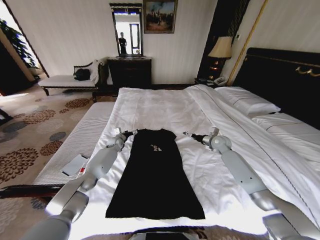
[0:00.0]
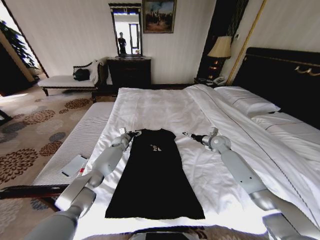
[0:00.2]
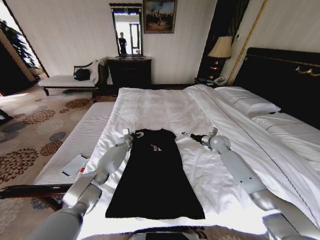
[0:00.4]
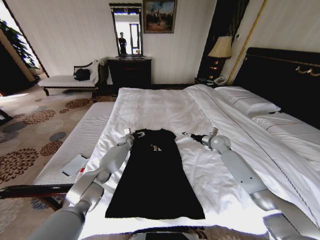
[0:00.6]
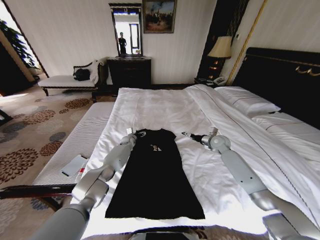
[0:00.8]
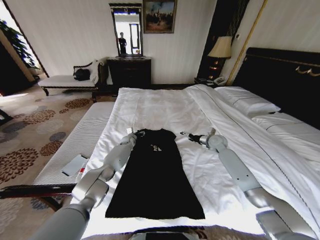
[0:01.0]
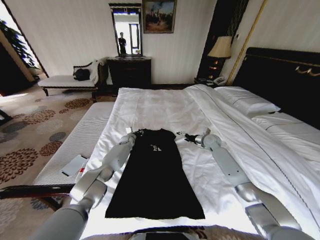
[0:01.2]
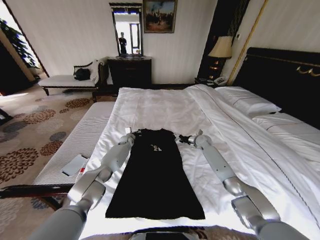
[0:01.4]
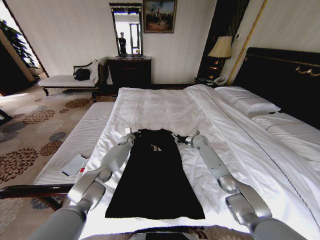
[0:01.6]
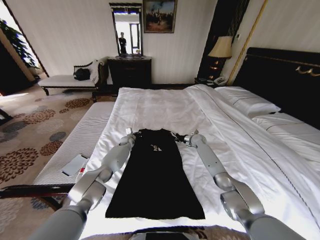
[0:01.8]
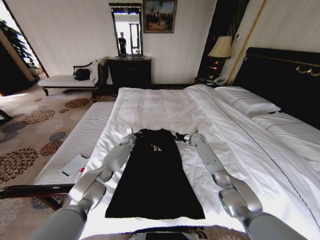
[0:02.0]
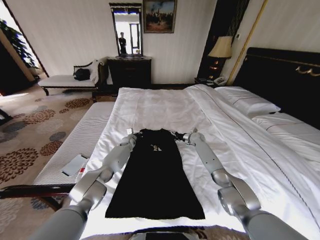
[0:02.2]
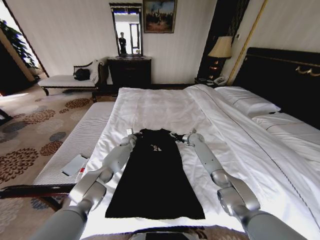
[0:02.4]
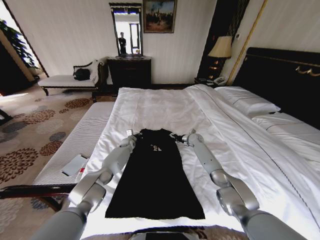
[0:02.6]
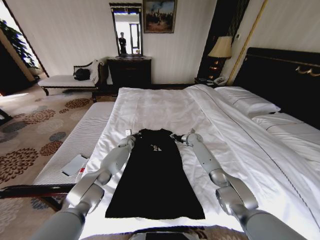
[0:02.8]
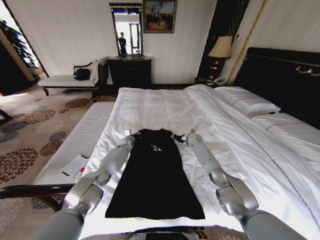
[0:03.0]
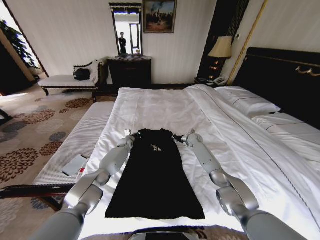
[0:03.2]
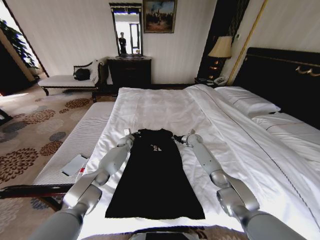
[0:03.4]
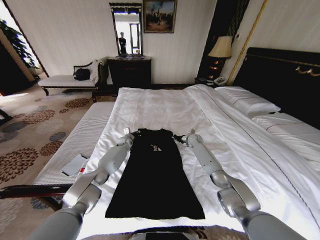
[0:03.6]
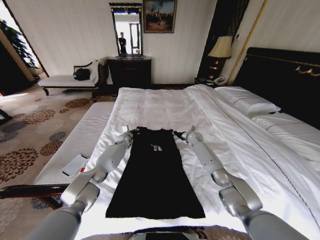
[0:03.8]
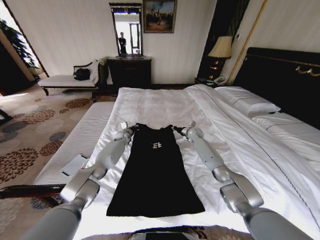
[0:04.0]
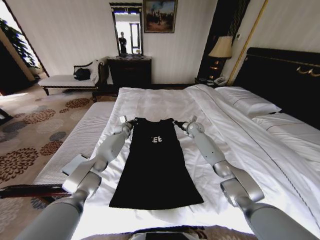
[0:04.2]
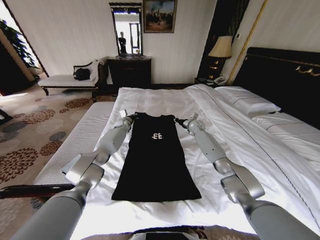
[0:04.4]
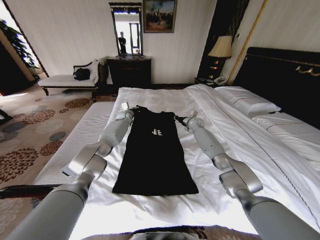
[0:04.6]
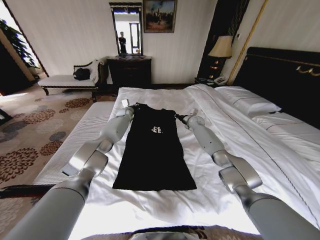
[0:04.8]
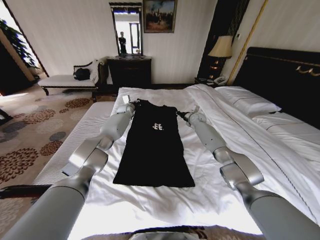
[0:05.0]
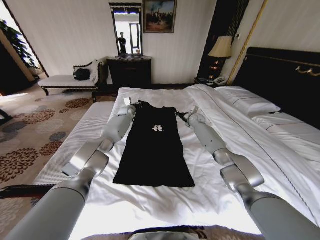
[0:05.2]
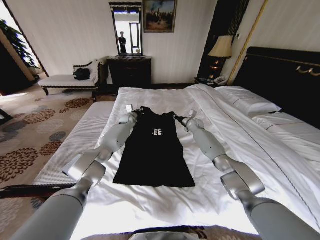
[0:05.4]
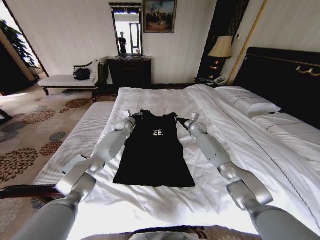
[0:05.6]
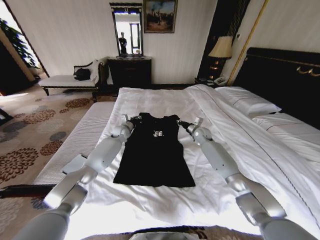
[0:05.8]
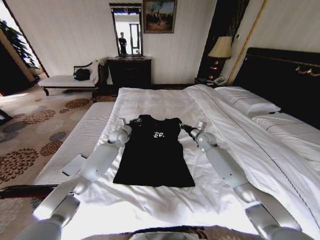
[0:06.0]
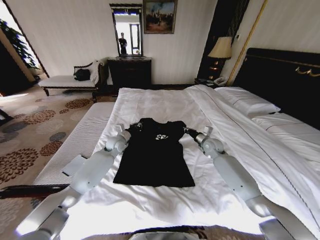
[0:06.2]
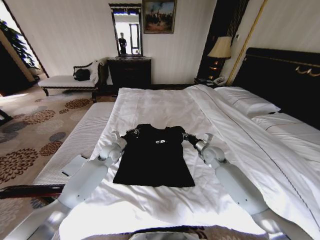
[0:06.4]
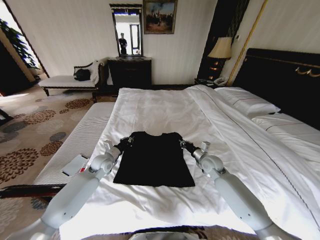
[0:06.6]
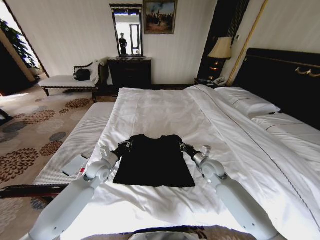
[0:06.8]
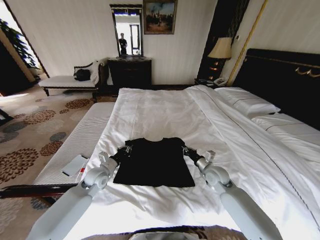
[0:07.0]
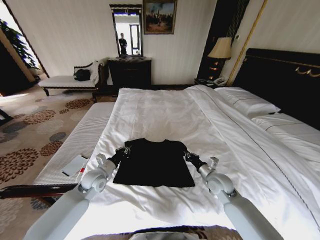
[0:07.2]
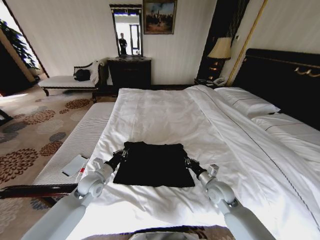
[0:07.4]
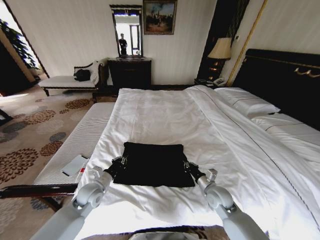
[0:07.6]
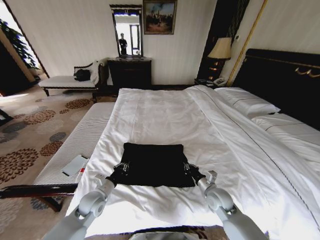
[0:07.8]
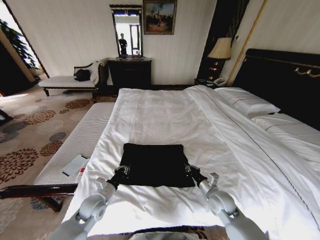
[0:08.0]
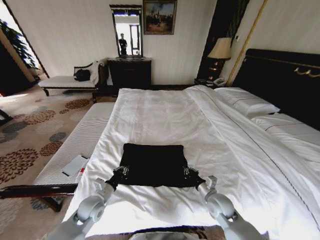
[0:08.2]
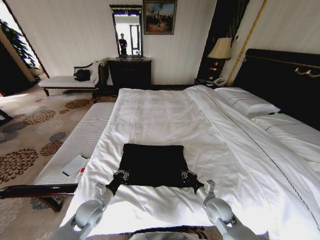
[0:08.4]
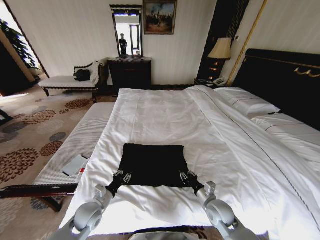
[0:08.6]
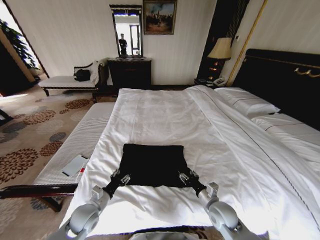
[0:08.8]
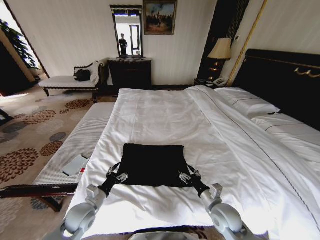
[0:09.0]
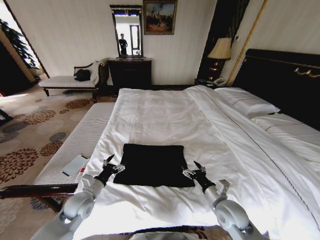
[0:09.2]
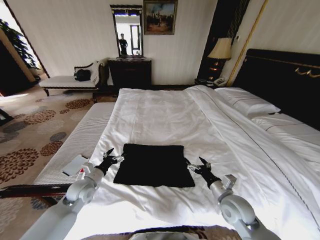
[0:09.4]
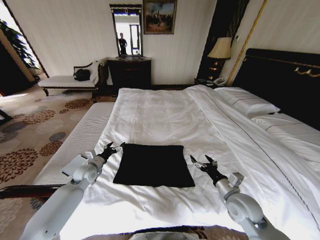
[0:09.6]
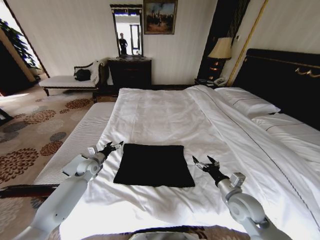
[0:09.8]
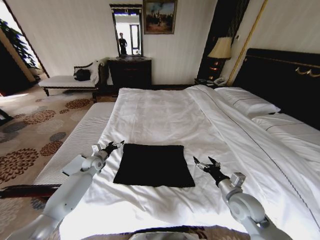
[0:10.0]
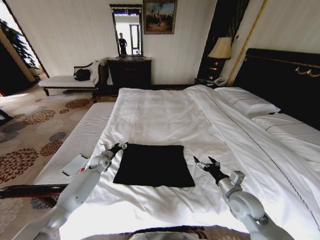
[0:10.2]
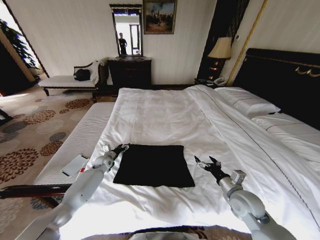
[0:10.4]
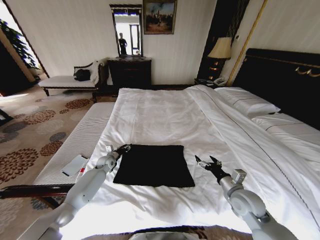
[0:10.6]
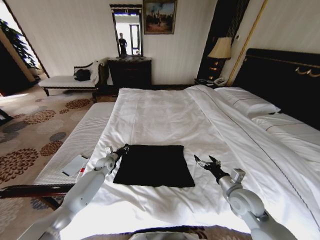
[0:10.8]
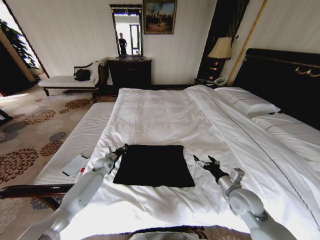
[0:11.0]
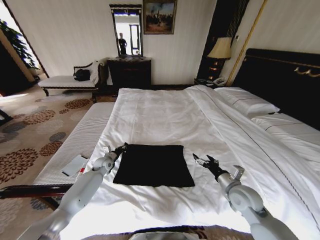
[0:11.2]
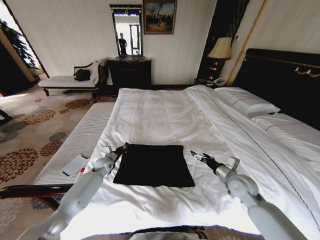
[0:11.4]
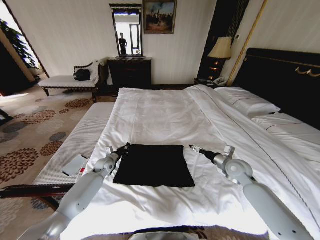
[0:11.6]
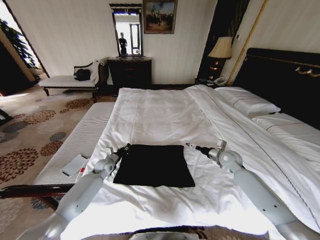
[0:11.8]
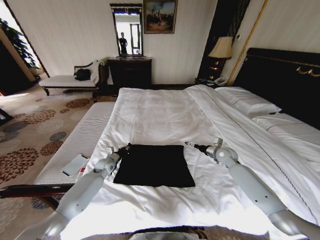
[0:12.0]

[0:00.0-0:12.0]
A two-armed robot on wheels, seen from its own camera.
Task of the whole recording: Fold the clothes on the bed.
0:00.0 to 0:01.6: The right gripper heads to the left, forward and downward, covering roughly 10 cm, while the left gripper moves to the right, approximately 5 cm, and closes up.
0:01.6 to 0:03.0: The right gripper closes up.
0:03.0 to 0:04.4: The right gripper travels upward by about 10 cm, while the left gripper travels upward and forward by about 15 cm.
0:04.4 to 0:06.0: The grippers both shift backward by about 10 cm.
0:06.0 to 0:07.6: The two grippers go approximately 25 cm backward.
0:07.6 to 0:09.0: Both grippers travel together backward, approximately 5 cm. The left gripper opens up; the right gripper opens up.
0:09.0 to 0:10.4: The left gripper is displaced forward by approximately 25 cm. Meanwhile the right gripper shifts about 10 cm to the right and upward.
0:10.4 to 0:12.0: The right gripper moves forward, about 20 cm. The left gripper closes.

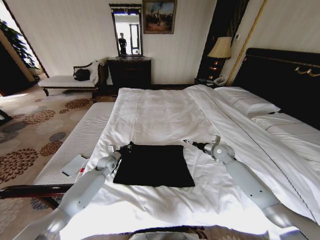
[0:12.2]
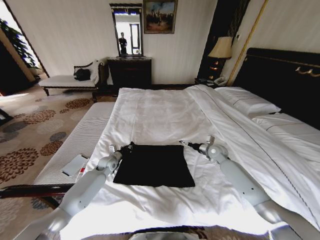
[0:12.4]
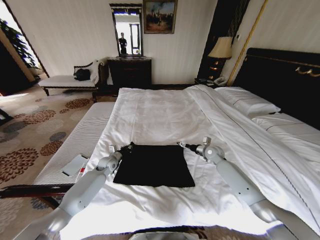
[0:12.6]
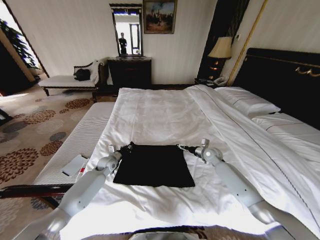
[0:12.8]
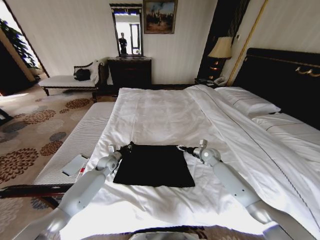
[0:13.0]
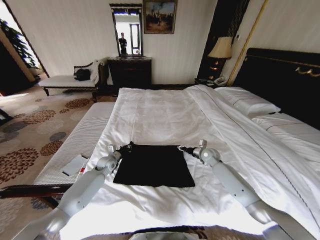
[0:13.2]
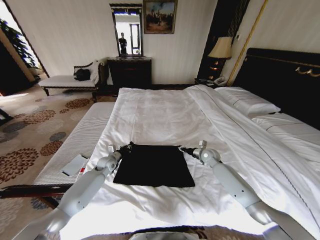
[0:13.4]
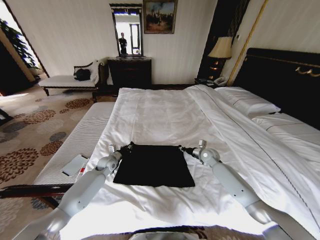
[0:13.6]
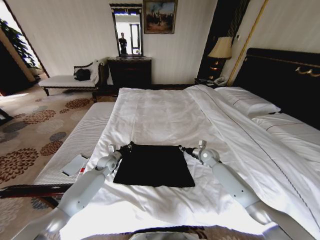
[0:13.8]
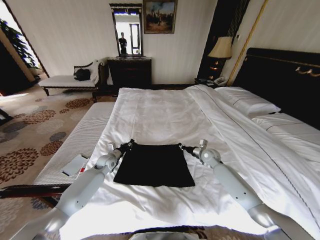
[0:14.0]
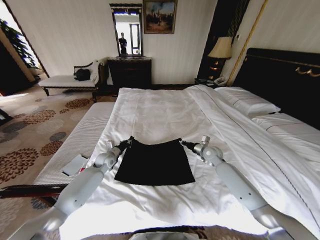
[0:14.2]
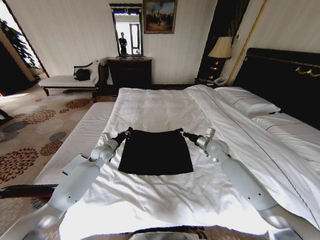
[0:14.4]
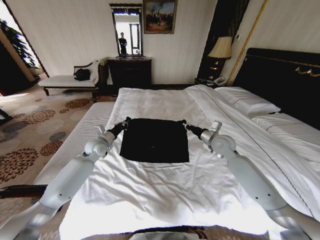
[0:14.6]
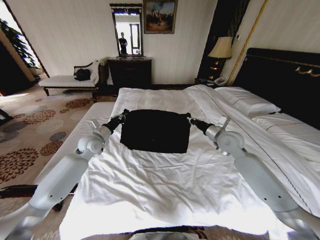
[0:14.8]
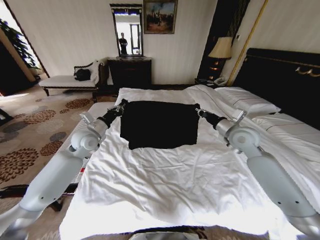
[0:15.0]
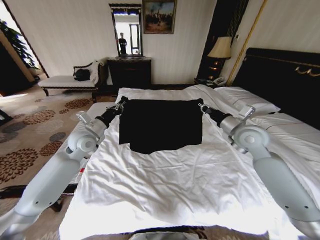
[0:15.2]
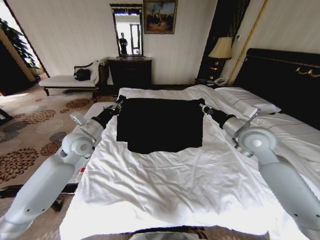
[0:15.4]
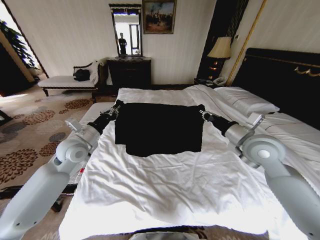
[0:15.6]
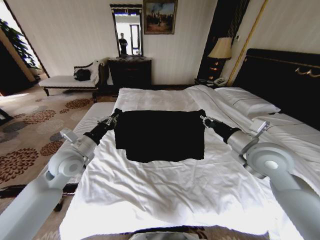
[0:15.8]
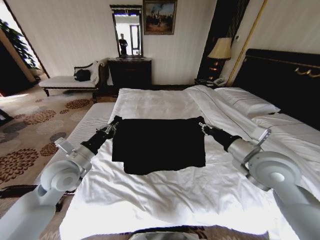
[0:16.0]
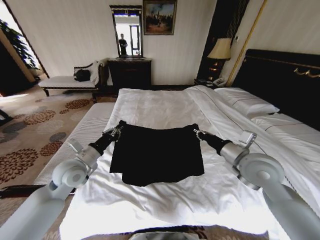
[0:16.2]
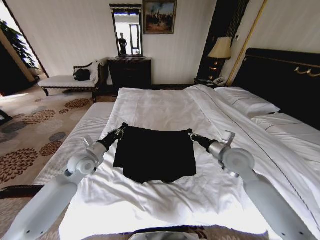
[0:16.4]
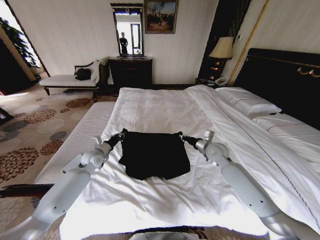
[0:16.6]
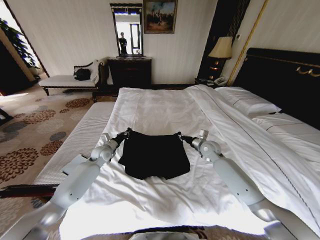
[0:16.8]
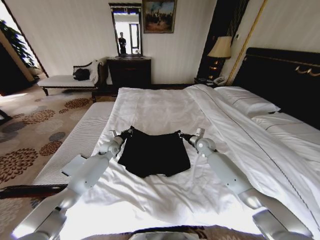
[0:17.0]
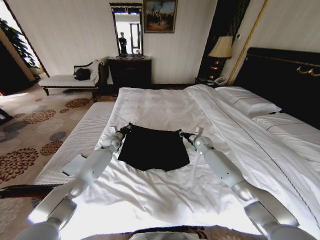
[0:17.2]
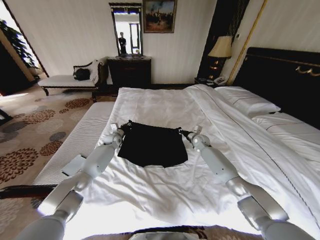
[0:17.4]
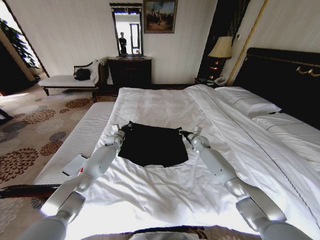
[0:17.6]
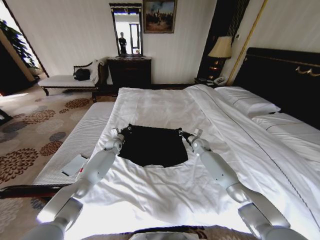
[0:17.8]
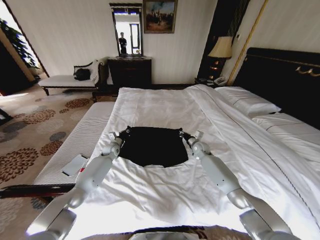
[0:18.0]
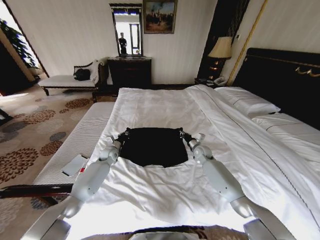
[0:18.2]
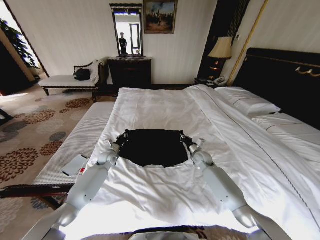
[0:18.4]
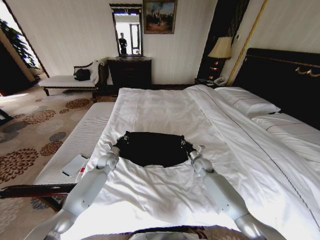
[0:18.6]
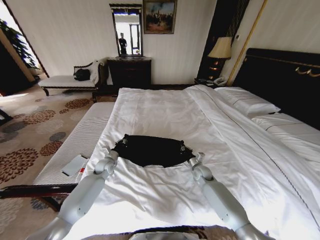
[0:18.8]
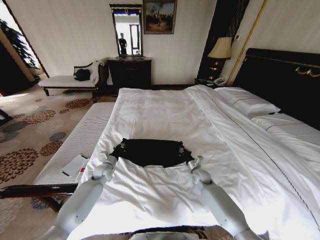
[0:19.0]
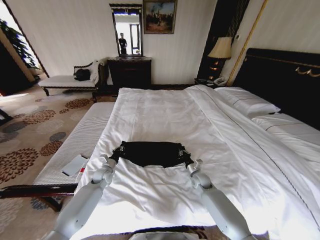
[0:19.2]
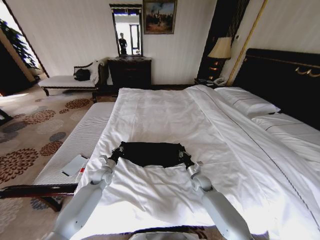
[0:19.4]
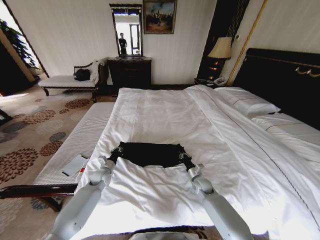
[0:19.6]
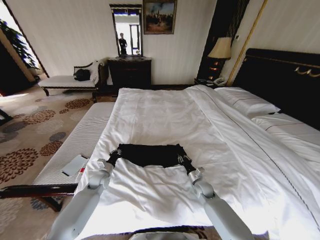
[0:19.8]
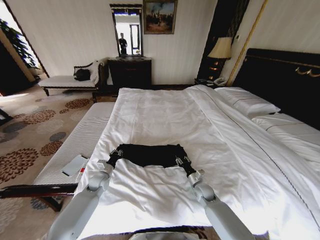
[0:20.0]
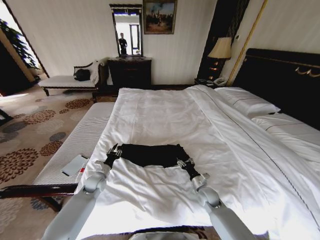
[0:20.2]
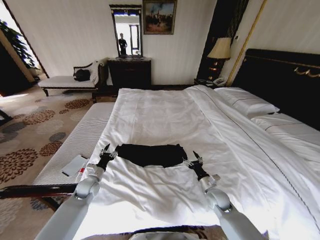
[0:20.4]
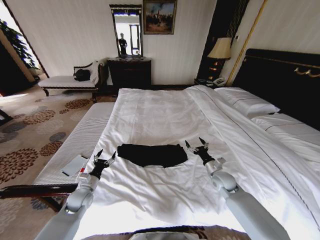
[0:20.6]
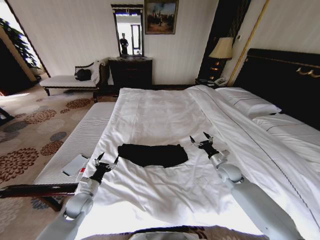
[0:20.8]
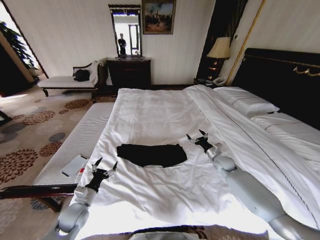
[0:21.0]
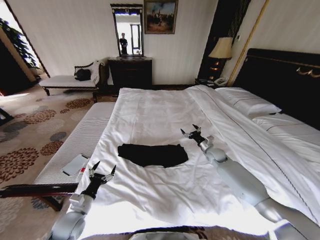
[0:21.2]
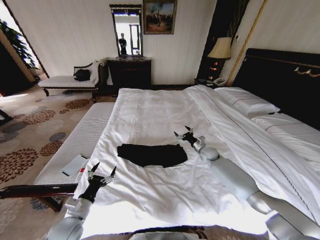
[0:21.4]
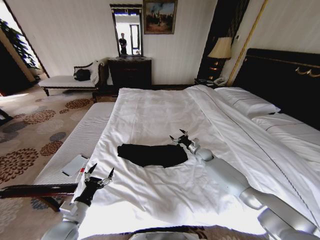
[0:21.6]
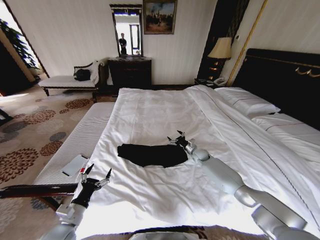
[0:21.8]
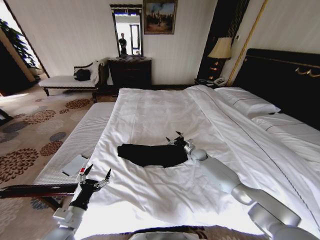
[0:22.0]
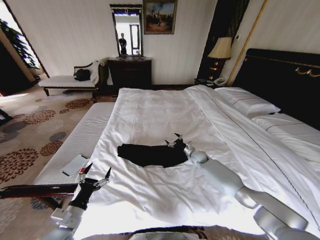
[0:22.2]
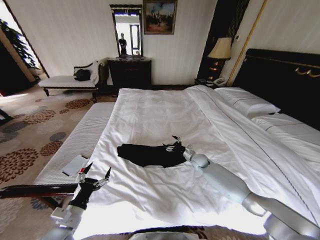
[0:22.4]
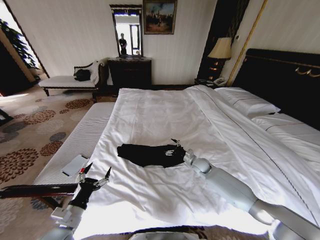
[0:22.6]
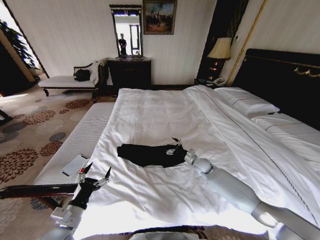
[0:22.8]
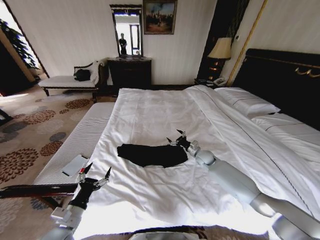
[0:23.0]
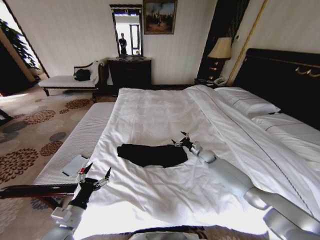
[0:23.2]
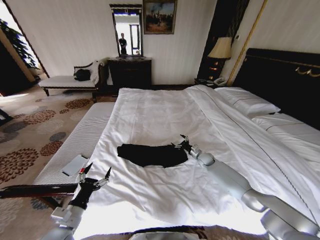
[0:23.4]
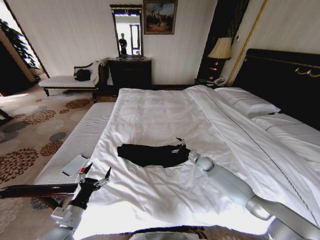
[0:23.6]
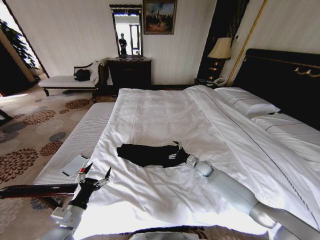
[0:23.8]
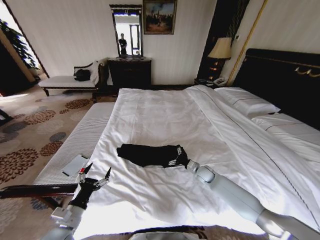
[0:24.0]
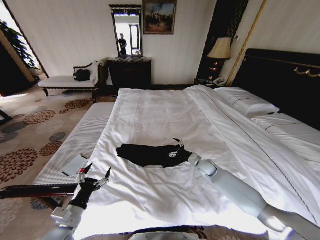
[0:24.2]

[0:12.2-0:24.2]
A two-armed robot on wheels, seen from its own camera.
Task of the whole recording: Fold the clothes on the bed.
0:12.2 to 0:13.8: The right gripper moves to the left, about 5 cm, and closes its fingers.
0:13.8 to 0:15.2: The grippers both shift upward by approximately 25 cm.
0:15.2 to 0:16.6: The grippers both shift downward by roughly 15 cm. The right gripper travels backward and back again, roughly 10 cm each way.
0:16.6 to 0:18.2: The right gripper is displaced downward and forward by roughly 10 cm. The left gripper is displaced forward and downward by approximately 10 cm.
0:18.2 to 0:19.8: The two grippers go about 15 cm backward and downward.
0:19.8 to 0:21.2: The right gripper travels forward, upward and to the right by about 20 cm, and opens, while the left gripper is displaced backward by approximately 20 cm, and opens up.
0:21.2 to 0:22.6: The right gripper goes roughly 10 cm to the left and downward, while the left gripper ends up approximately 5 cm from where it was.
